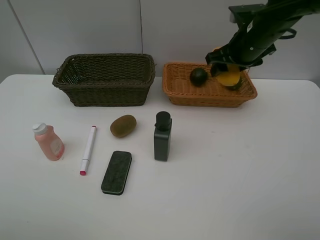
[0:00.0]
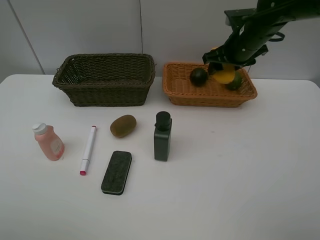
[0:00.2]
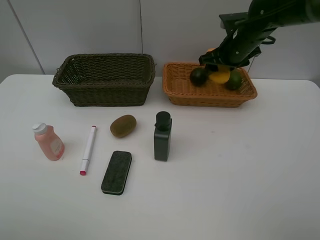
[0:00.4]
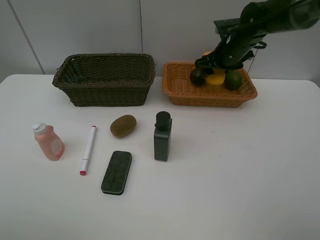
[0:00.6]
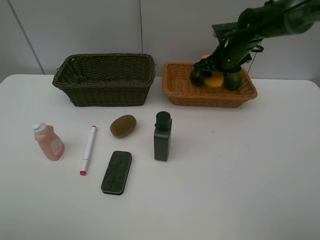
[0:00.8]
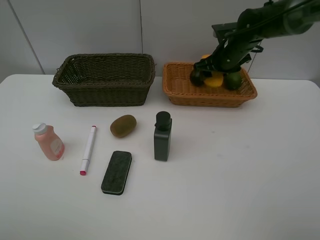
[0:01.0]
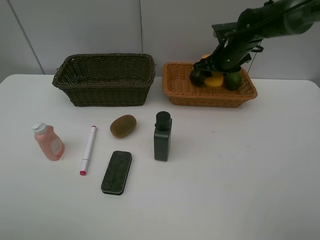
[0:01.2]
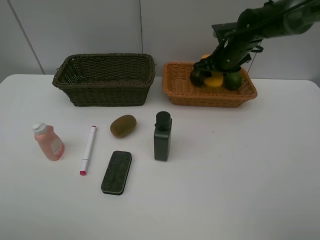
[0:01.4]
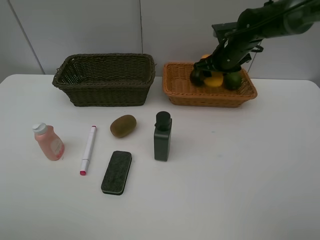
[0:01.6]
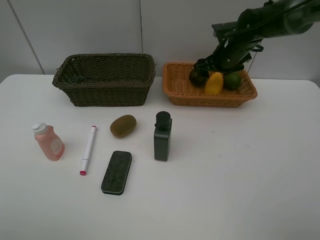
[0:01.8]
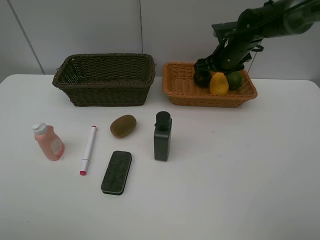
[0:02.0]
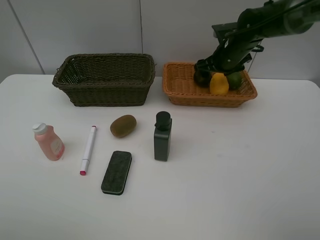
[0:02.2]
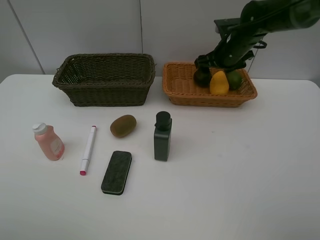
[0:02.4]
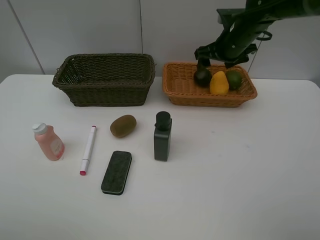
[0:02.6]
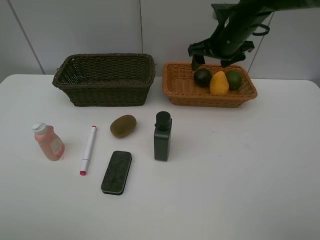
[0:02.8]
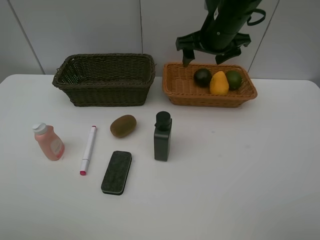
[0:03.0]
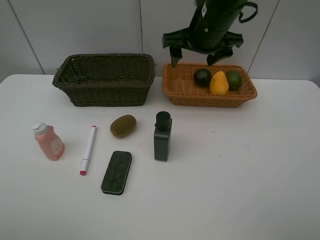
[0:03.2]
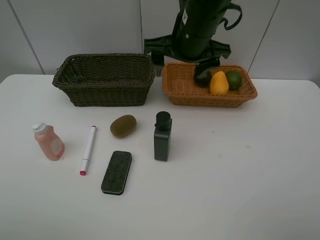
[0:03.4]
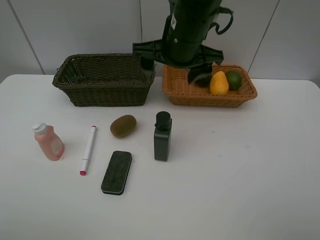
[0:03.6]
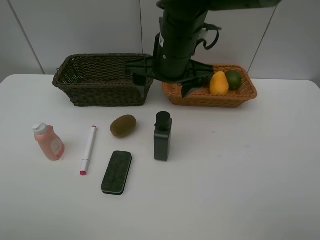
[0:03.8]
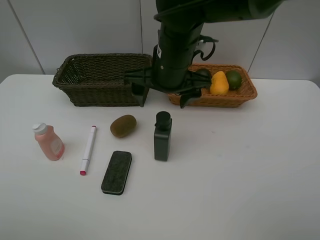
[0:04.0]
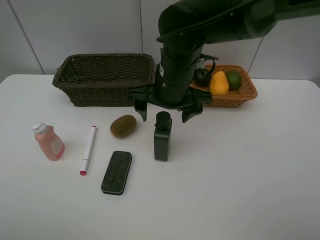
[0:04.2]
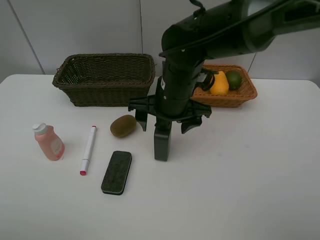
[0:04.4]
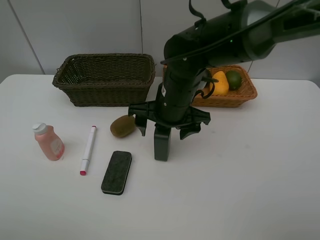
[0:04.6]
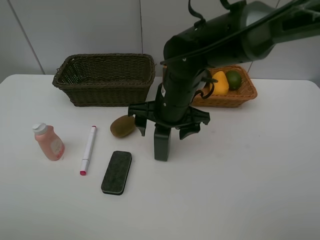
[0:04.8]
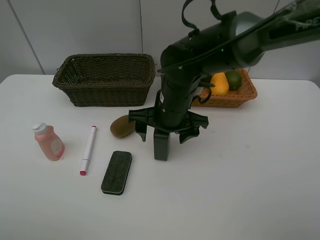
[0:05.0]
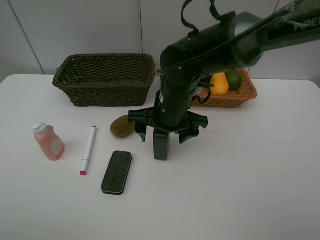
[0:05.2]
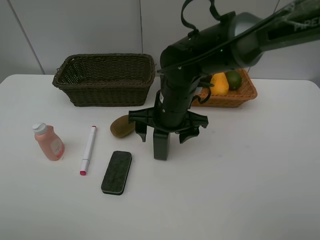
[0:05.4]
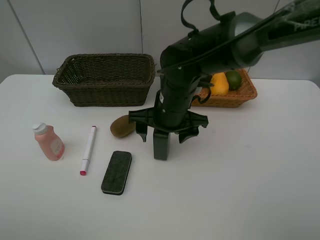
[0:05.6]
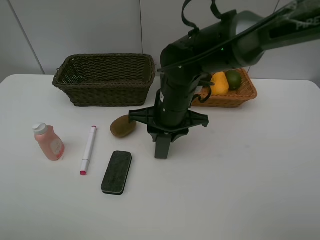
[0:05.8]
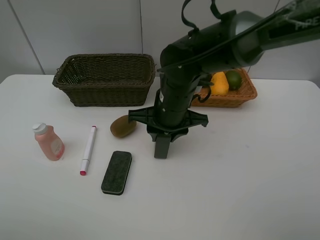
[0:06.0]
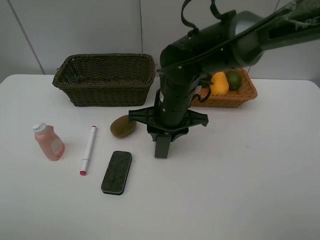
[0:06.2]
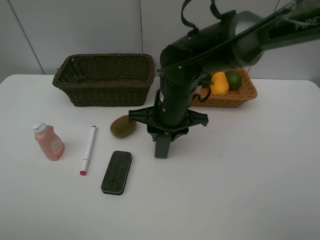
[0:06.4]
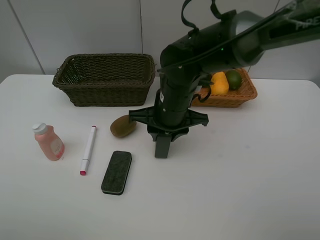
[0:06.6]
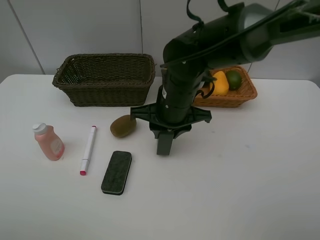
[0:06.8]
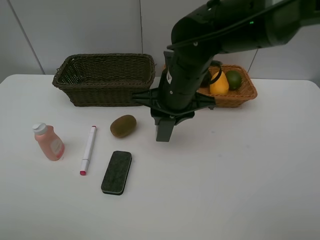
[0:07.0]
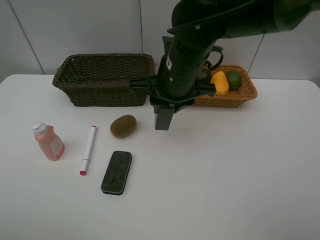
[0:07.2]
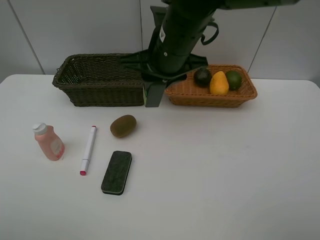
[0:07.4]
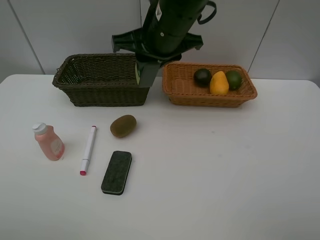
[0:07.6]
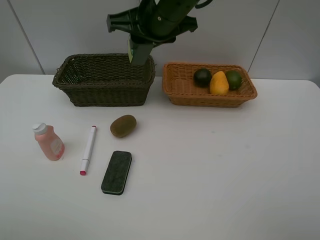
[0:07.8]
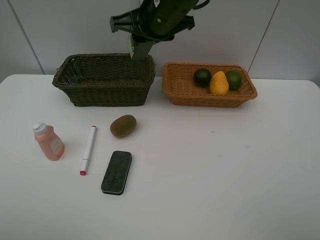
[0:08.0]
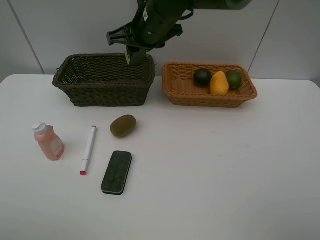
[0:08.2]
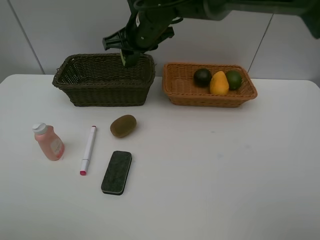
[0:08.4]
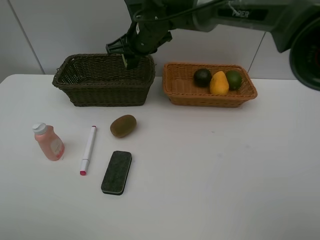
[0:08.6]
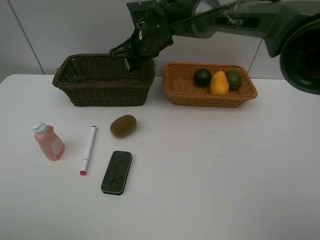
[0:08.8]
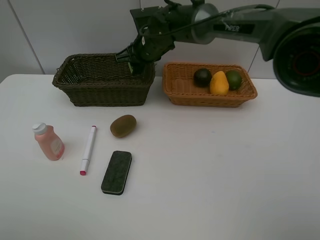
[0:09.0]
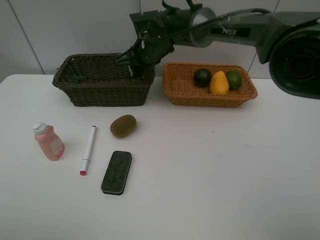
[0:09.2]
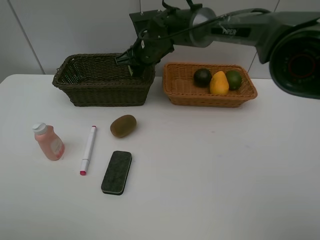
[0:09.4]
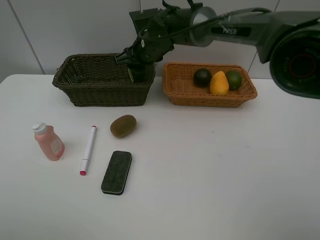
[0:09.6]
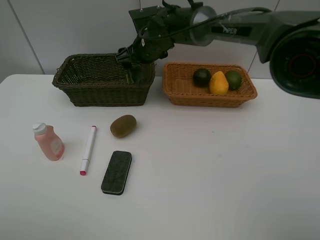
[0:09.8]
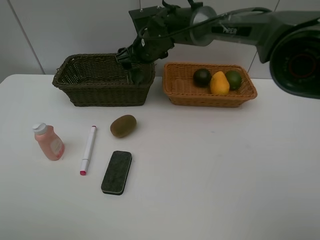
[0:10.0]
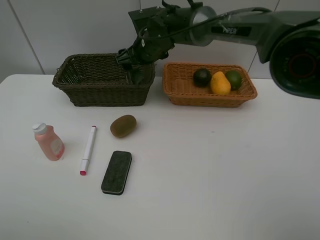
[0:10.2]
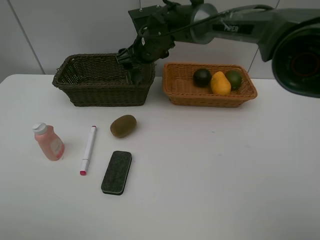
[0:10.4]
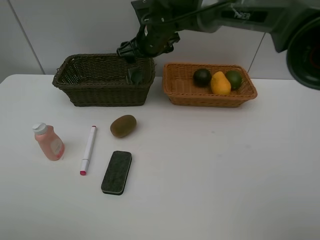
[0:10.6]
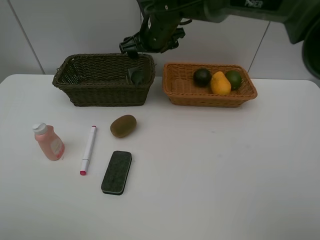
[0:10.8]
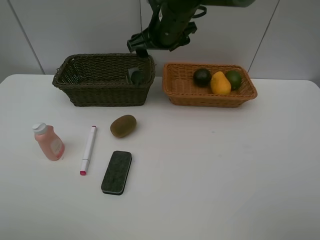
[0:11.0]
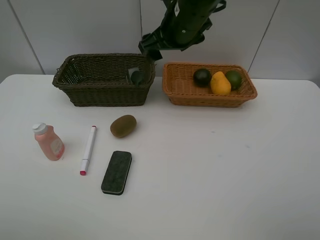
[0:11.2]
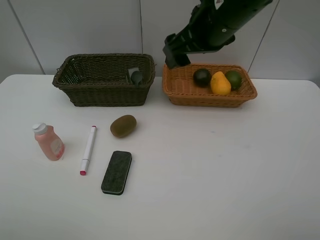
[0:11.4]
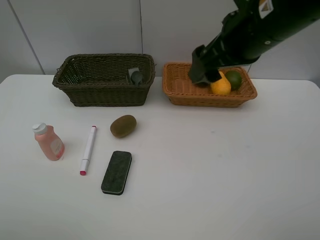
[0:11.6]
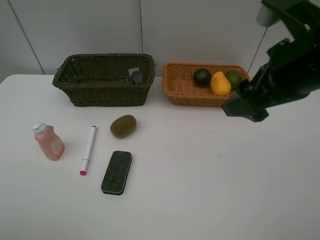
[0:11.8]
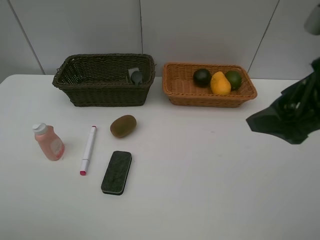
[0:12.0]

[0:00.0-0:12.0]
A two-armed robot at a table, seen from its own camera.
Task of the whole recording: Place multiple objects separately in different baskets.
Step, 0:00.0 to 0:02.6: Place the mango in the light basket with right gripper.
Step, 0:02.8 to 0:06.8: Pick up the hard facial cleanser with right gripper.
Step, 0:07.0 to 0:10.6: Place the hard facial cleanser in the dark basket with right gripper.
0:00.0 to 0:01.6: The right gripper heads forward and downward, covering roughly 10 cm.
0:01.6 to 0:03.0: The right gripper goes roughly 15 cm upward, backward and to the left.
0:03.0 to 0:04.4: The right gripper goes roughly 15 cm backward, downward and to the left.
0:04.4 to 0:06.0: The right gripper closes.
0:06.0 to 0:07.6: The right gripper is displaced upward by approximately 15 cm.
0:07.6 to 0:09.0: The right gripper travels forward and downward by approximately 15 cm.
0:09.0 to 0:10.4: The right gripper opens up.
0:10.4 to 0:12.0: The right gripper goes roughly 40 cm backward and to the right.

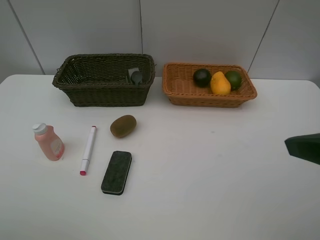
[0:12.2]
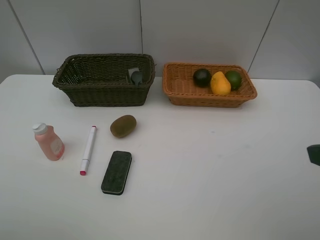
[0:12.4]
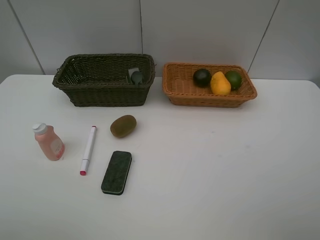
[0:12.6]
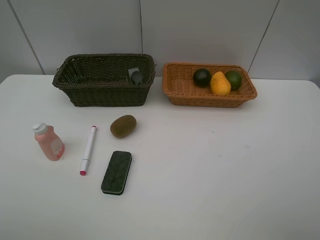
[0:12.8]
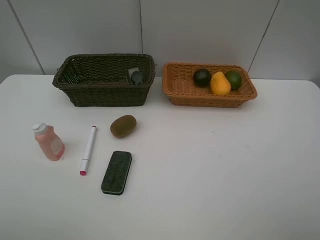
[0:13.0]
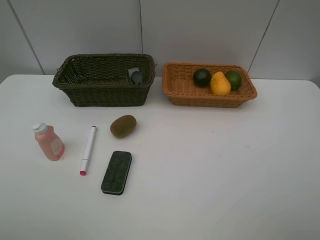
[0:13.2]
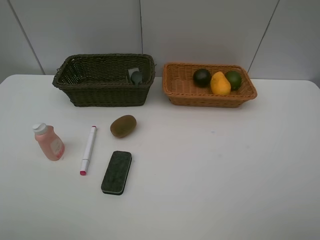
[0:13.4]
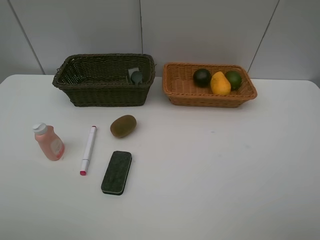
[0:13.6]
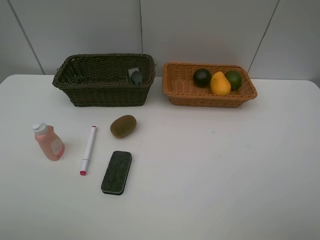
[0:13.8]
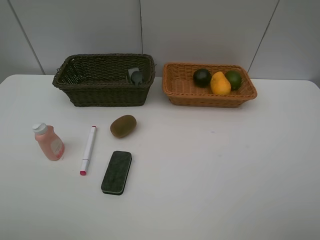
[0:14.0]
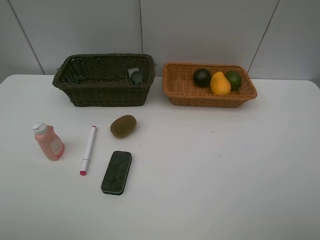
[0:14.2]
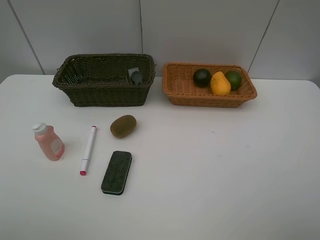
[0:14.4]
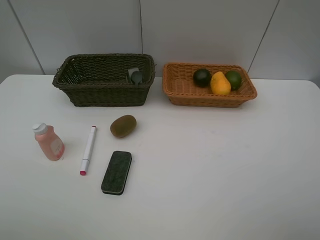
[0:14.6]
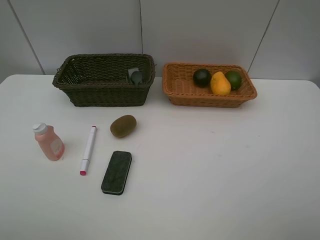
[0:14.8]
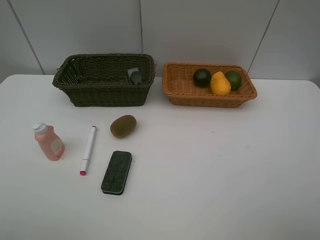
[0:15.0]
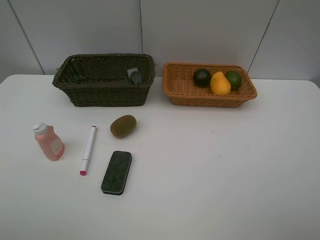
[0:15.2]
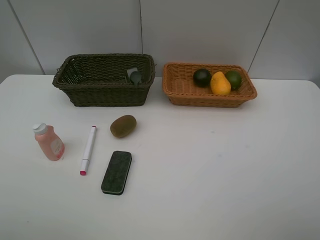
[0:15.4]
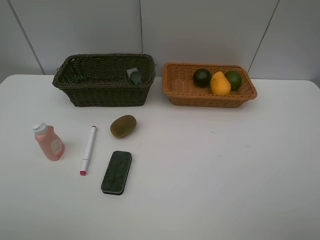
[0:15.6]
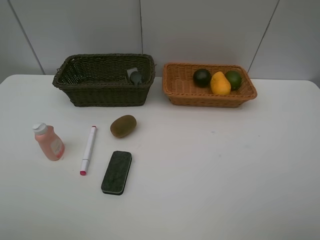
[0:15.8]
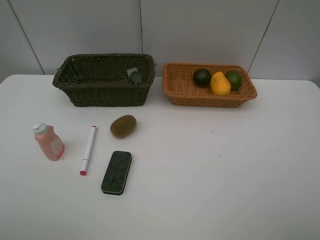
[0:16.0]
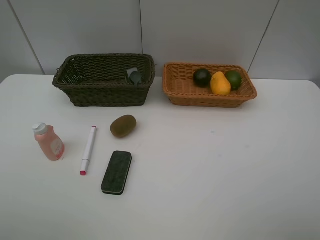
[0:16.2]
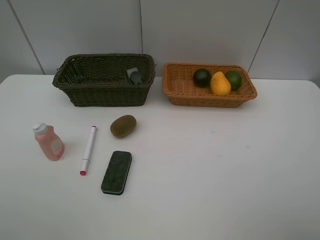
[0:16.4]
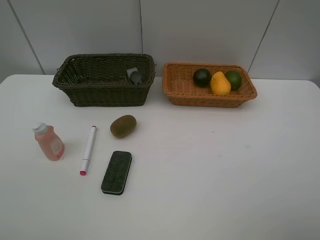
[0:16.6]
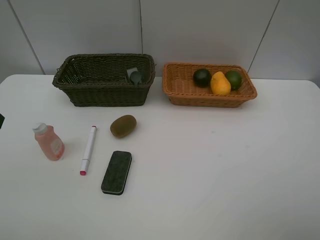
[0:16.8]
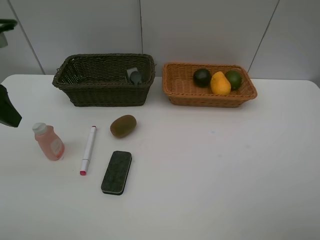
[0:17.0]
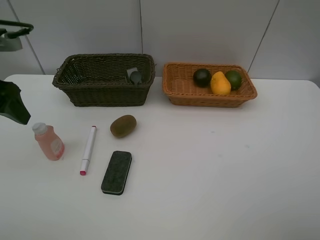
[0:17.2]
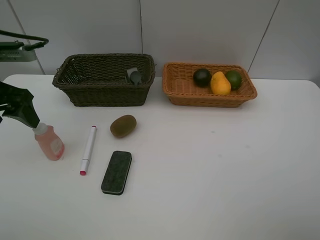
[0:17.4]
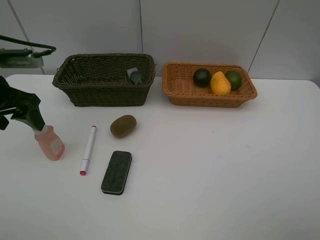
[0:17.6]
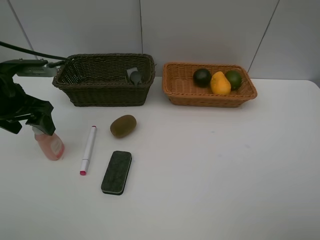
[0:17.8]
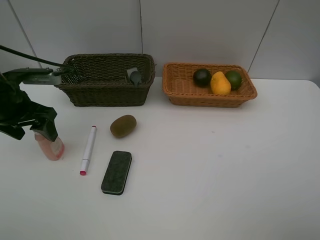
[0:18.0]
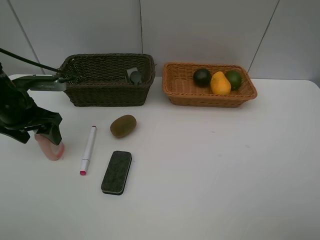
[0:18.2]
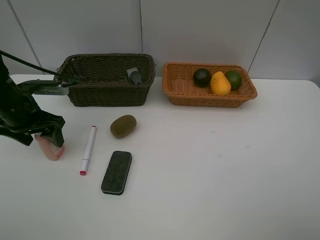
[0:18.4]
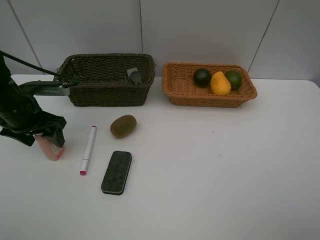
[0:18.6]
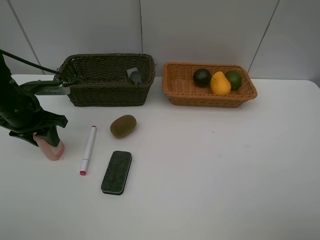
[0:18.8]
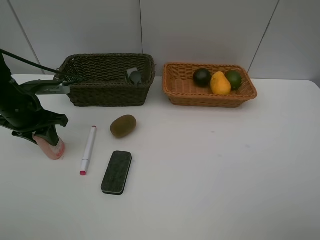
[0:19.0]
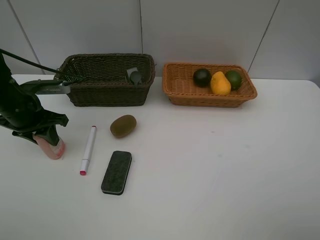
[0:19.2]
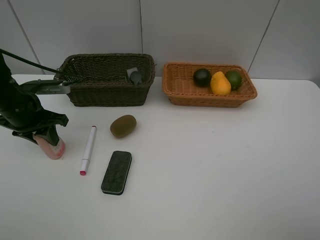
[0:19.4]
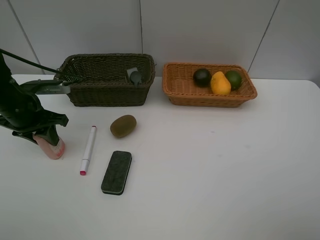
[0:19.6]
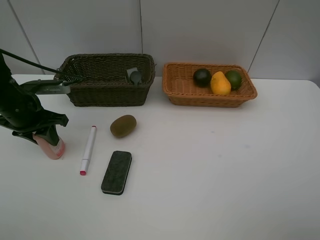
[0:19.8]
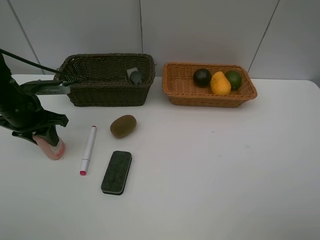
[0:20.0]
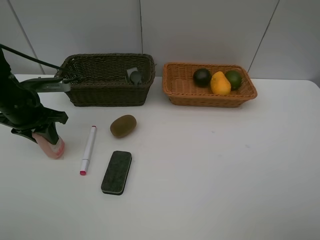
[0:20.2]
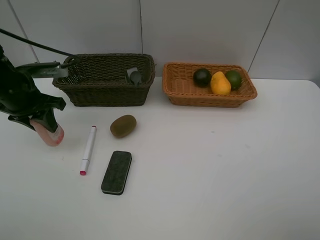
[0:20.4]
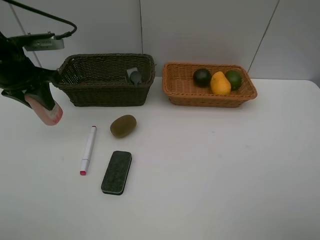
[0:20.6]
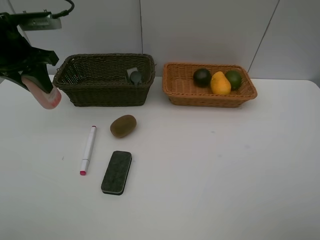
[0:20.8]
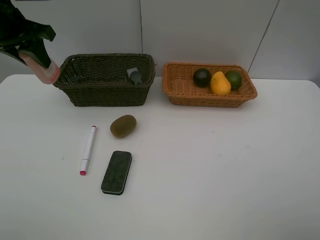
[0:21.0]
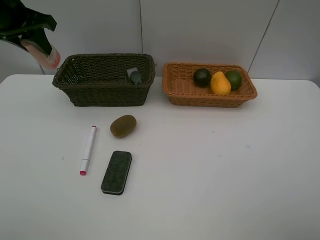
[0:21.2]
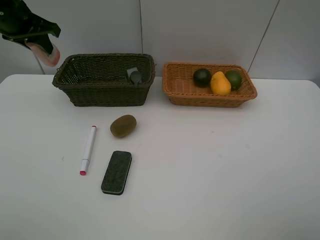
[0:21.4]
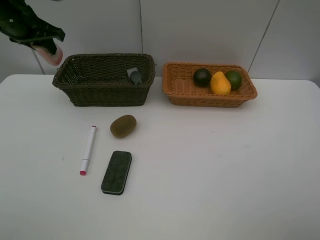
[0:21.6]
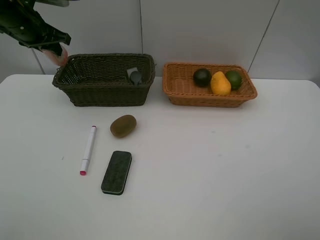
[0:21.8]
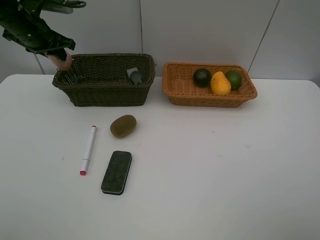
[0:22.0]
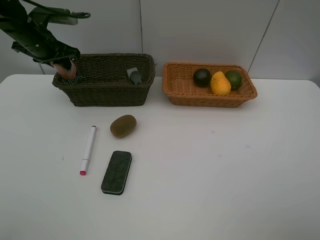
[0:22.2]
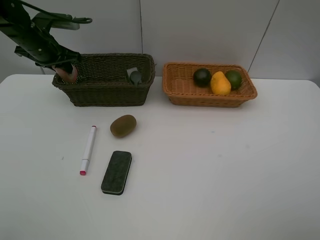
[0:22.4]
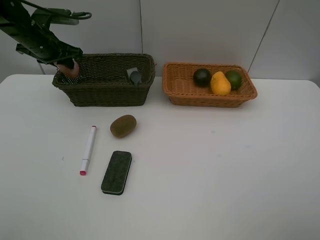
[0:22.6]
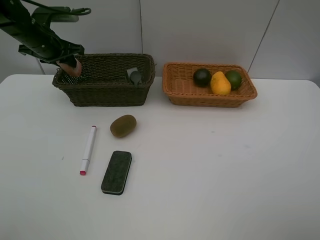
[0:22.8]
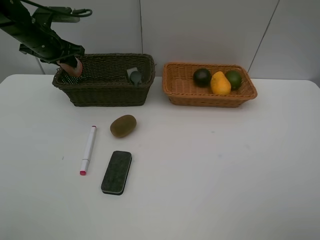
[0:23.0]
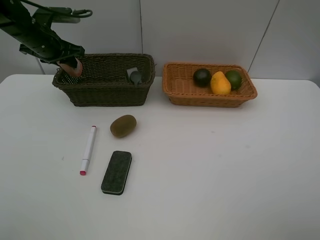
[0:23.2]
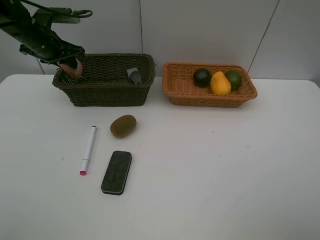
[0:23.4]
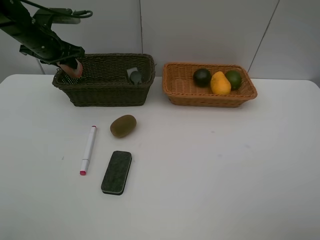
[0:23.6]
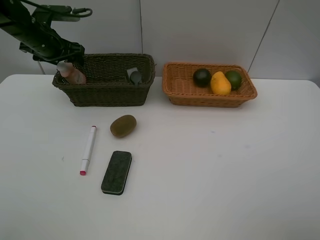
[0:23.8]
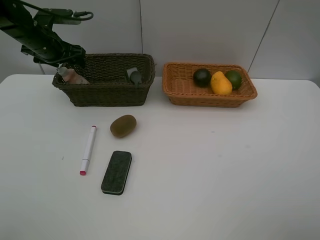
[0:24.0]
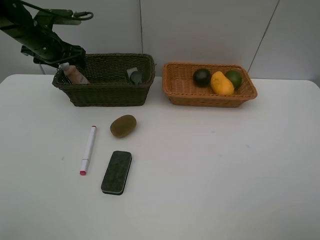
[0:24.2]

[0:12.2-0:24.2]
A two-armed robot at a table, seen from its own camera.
Task of the whole recording: Place multiple objects separately in different baskets.
Step, 0:12.2 to 0:20.2: Pick up the laundry detergent with left gripper.
0:12.2 to 0:13.8: The right gripper goes some 10 cm backward.
0:13.8 to 0:15.2: Both grippers stay about where they are.
0:16.6 to 0:18.2: The left gripper shifts approximately 20 cm forward and downward.
0:18.2 to 0:19.8: The left gripper closes its fingers.
0:19.8 to 0:21.2: The left gripper moves upward and forward, roughly 20 cm.
0:21.2 to 0:22.6: The left gripper heads downward and forward, covering approximately 10 cm.
0:22.6 to 0:24.2: The left gripper opens up.
